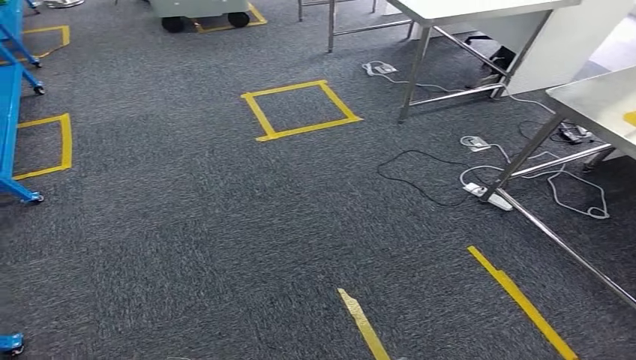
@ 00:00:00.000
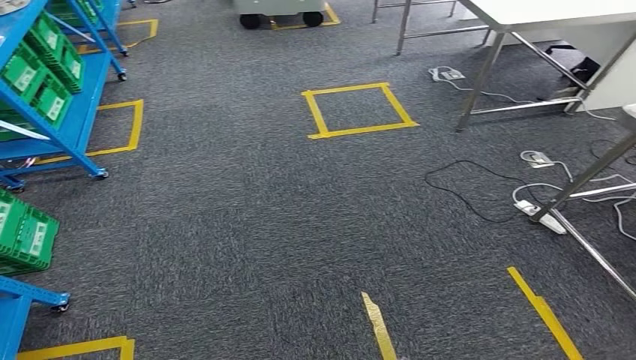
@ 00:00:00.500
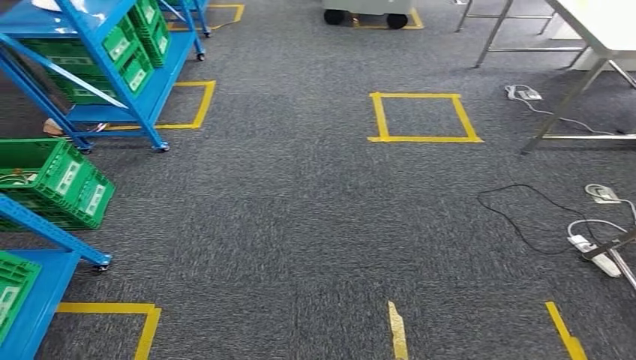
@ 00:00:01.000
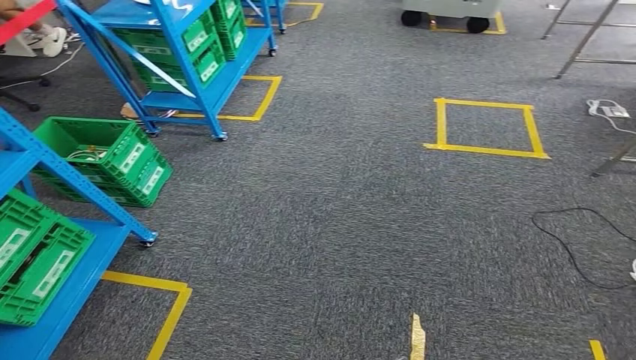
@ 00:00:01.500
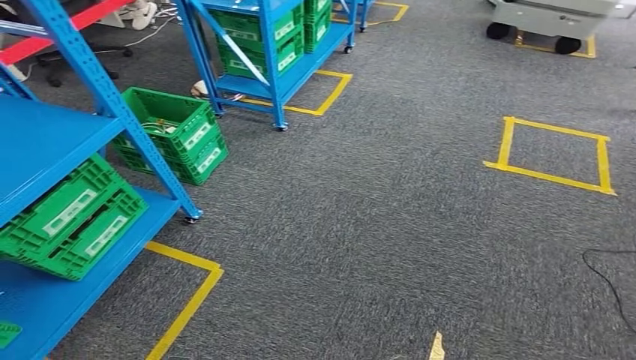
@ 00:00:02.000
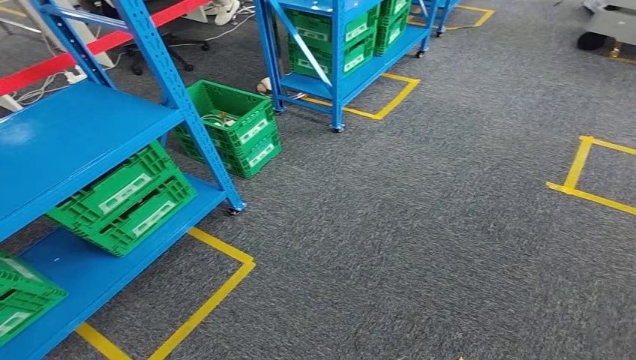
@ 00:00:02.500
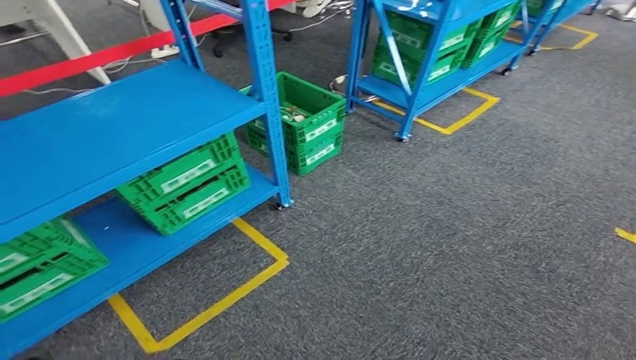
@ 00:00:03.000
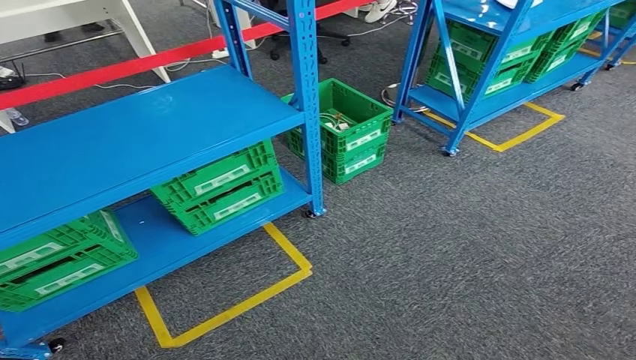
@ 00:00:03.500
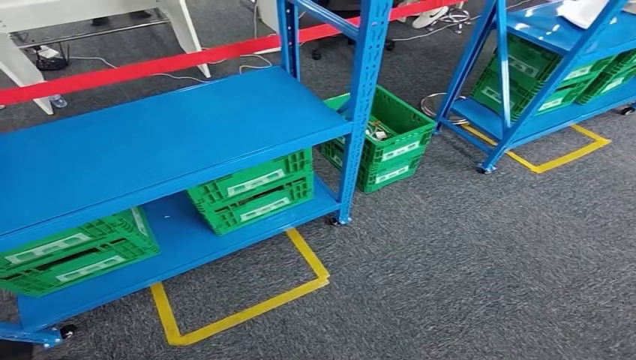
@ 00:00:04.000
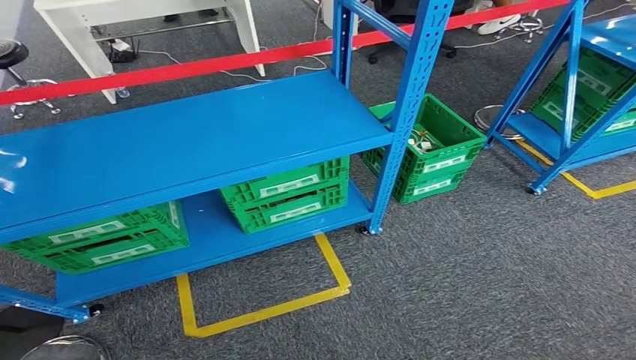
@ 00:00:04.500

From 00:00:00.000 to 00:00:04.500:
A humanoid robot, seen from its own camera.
Step, from 00:00:00.000 to 00:00:04.500: Move to the initial position at the workbench.
